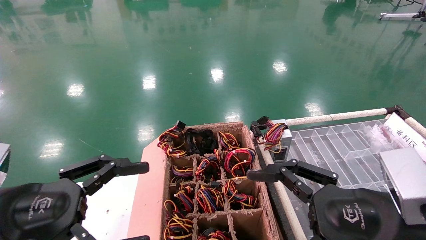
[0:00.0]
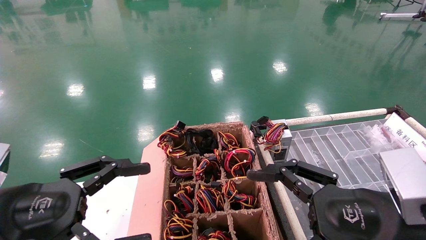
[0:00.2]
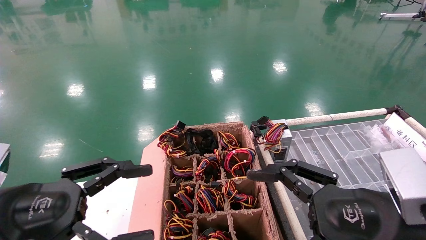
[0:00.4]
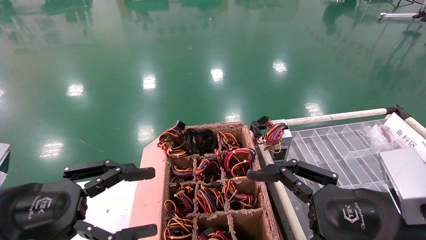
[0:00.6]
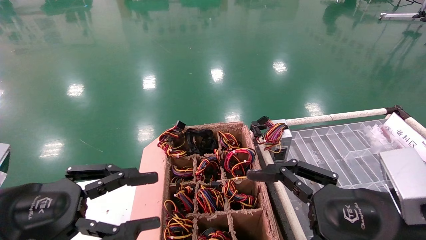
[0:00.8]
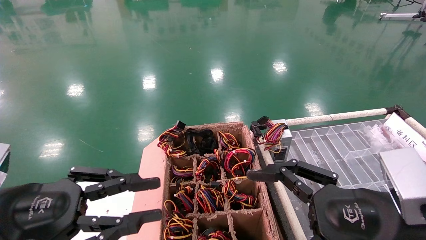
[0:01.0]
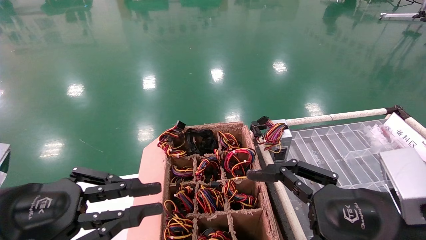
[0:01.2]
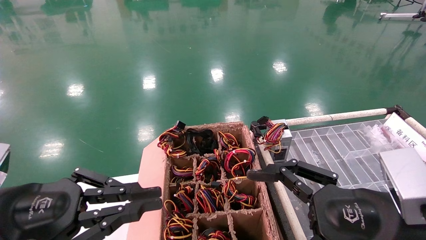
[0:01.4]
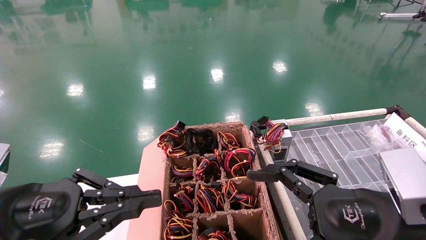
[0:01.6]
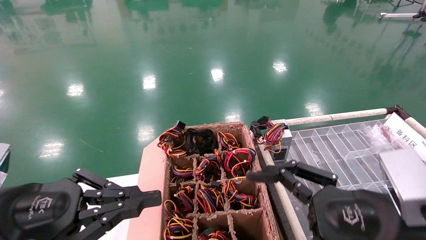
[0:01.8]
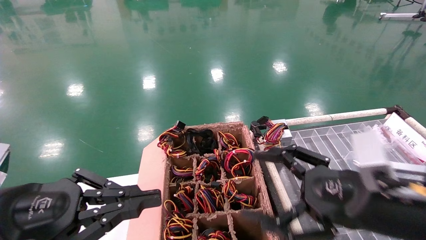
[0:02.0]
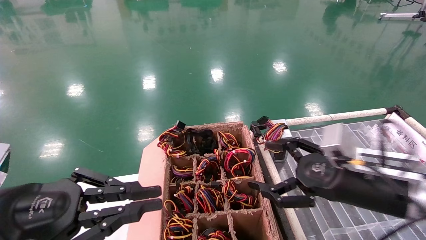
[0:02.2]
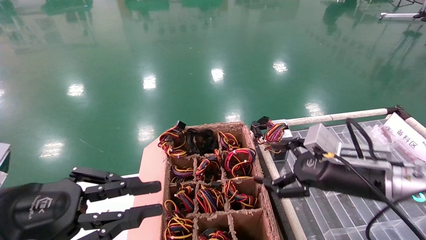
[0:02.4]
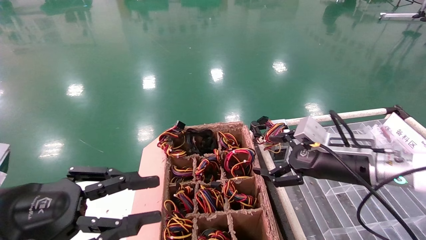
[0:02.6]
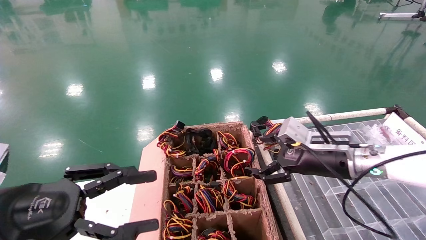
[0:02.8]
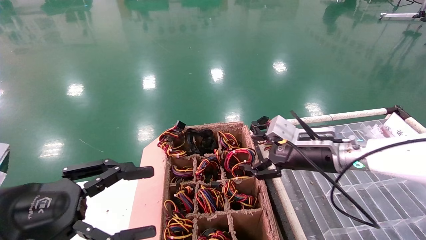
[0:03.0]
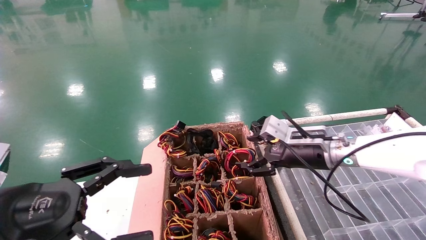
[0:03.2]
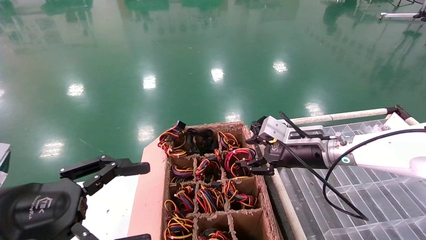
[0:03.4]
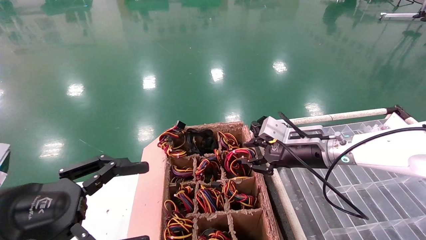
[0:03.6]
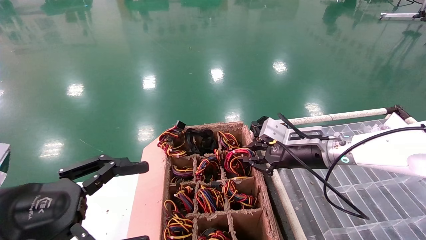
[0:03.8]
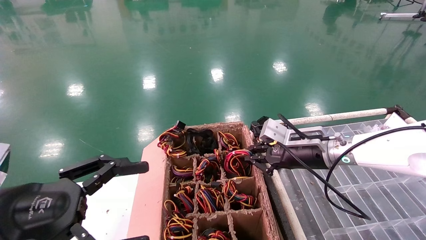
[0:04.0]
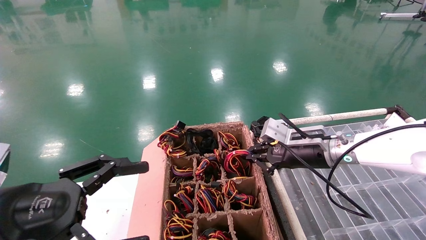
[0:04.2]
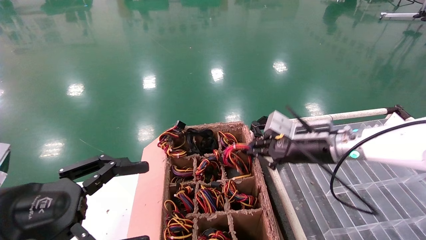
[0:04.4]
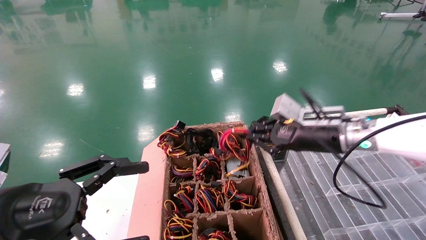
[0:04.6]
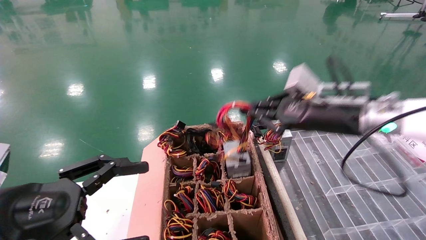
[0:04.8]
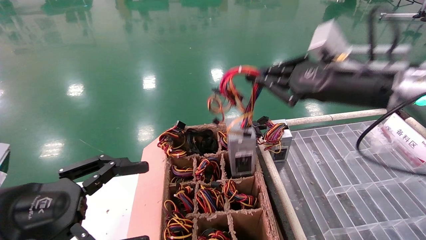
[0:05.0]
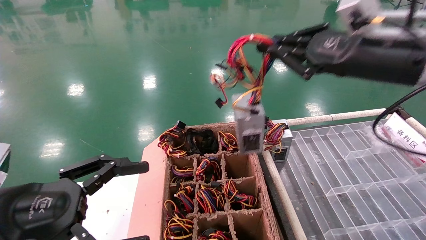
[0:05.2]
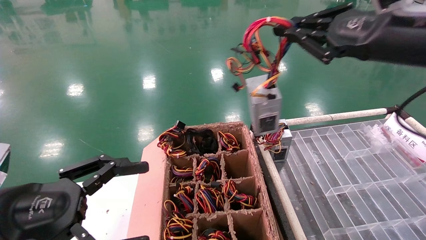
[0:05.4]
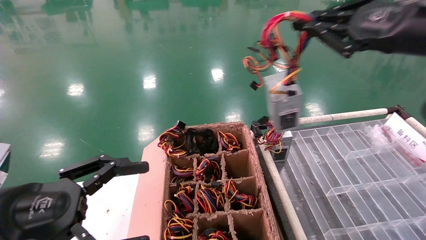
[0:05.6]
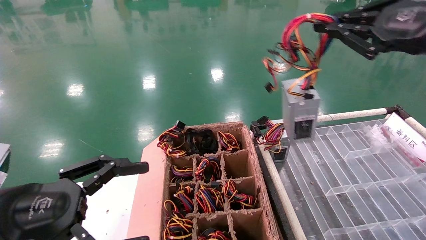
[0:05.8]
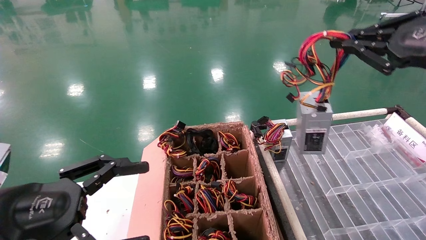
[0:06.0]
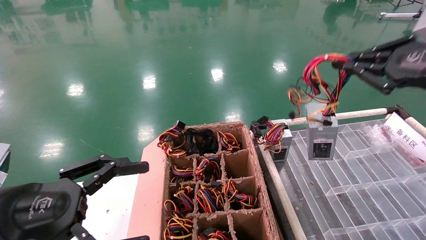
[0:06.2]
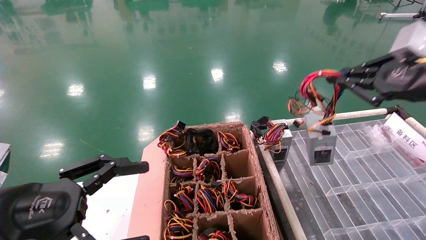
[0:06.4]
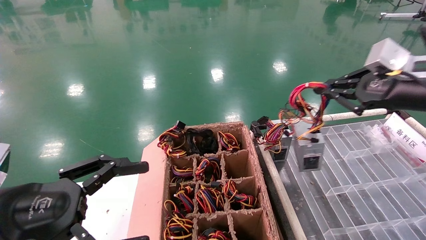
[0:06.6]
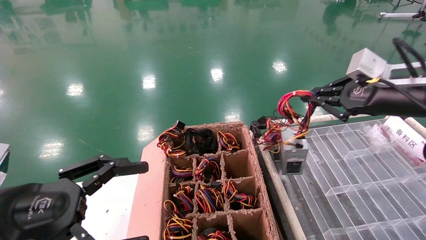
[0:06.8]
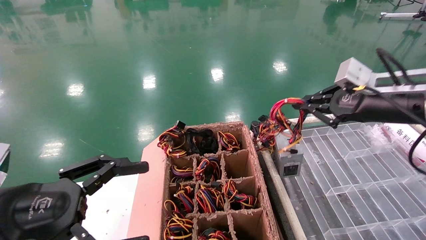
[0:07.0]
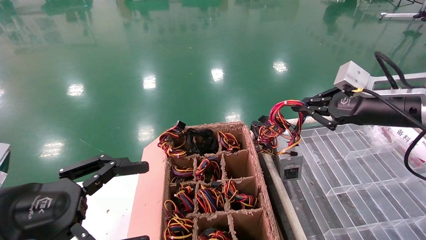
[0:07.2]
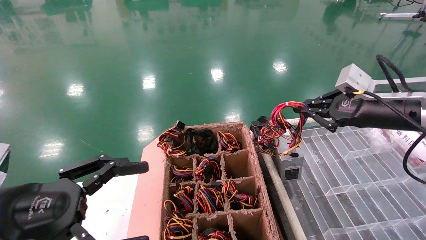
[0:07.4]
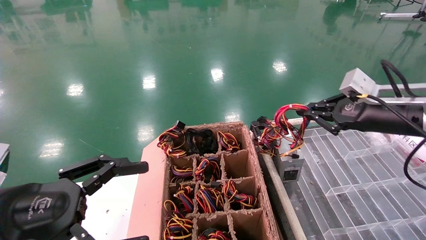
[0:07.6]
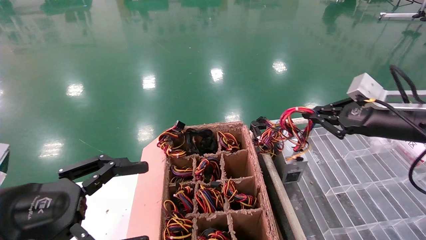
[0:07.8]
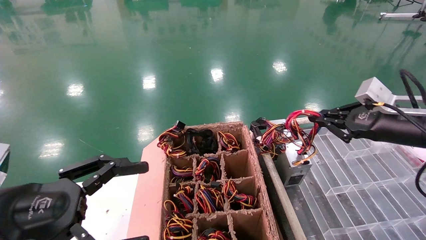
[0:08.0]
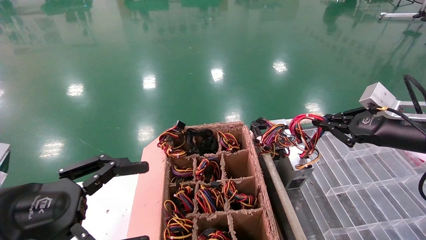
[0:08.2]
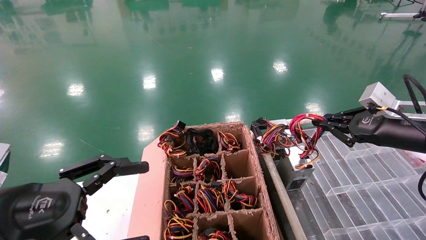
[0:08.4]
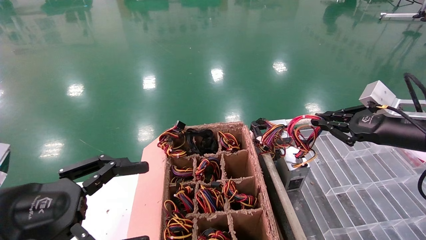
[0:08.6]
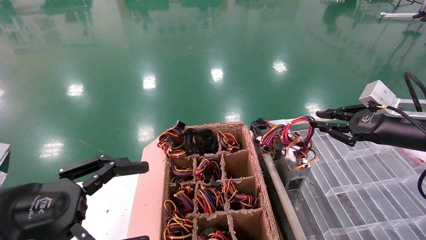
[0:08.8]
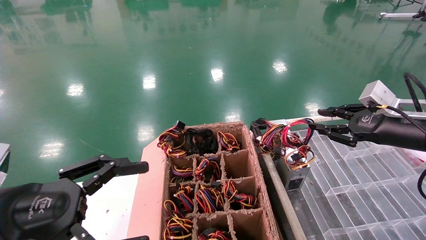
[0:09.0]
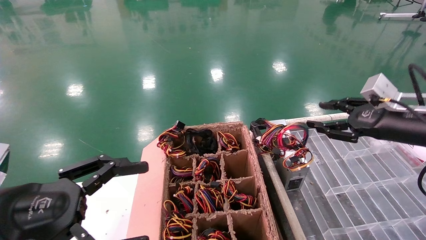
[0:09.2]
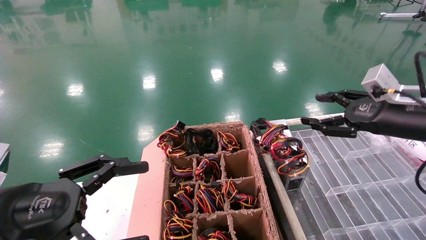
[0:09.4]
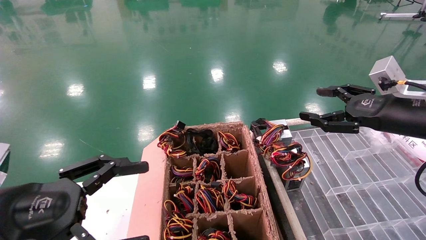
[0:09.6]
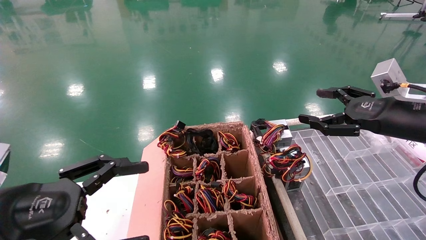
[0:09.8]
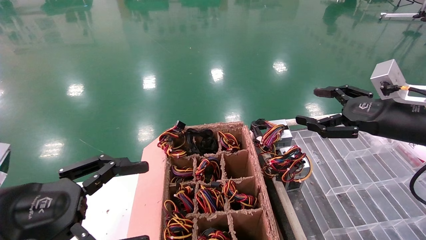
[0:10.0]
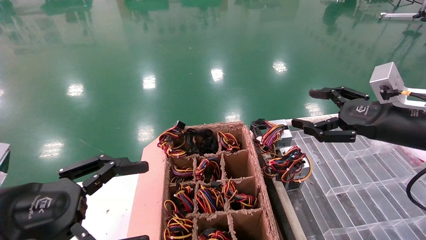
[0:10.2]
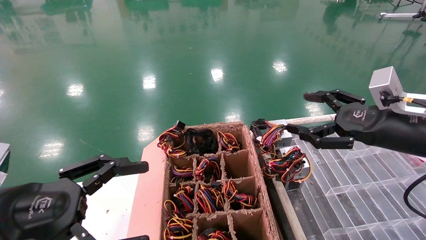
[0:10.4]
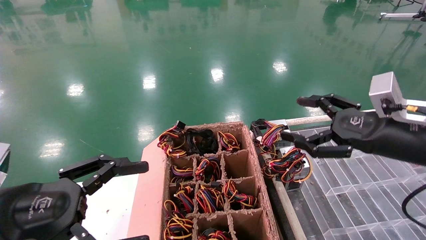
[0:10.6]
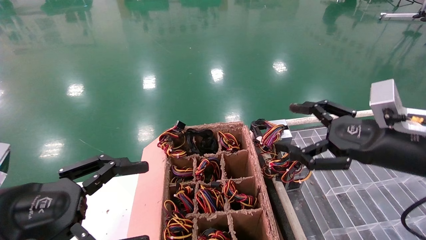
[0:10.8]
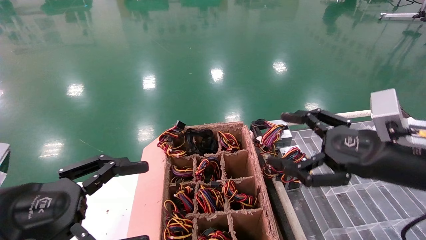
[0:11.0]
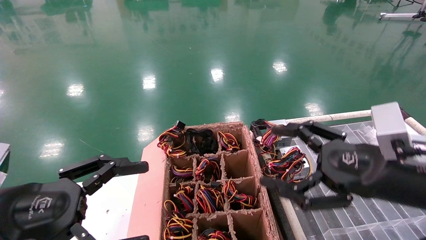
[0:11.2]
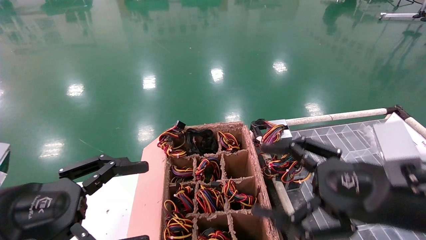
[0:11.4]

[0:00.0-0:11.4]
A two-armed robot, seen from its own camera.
Step, 0:02.2 to 0:04.4: Grab and lift the power supply from the large box.
Step, 0:04.6 to 0:08.6: Place the power supply on the operating table.
0:00.0 to 0:01.4: The left gripper closes up.
0:01.4 to 0:02.8: The right gripper heads forward, covering some 20 cm.
0:02.8 to 0:04.2: The right gripper closes up, while the left gripper opens its fingers.
0:04.2 to 0:05.6: The right gripper heads upward, backward and to the right, covering approximately 25 cm.
0:05.6 to 0:07.2: The right gripper moves downward and forward, approximately 15 cm.
0:07.2 to 0:08.6: The right gripper is displaced downward by approximately 5 cm.
0:08.6 to 0:10.0: The right gripper opens.
0:10.0 to 0:11.4: The right gripper moves backward, to the left and downward, about 15 cm.
